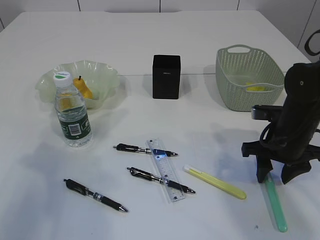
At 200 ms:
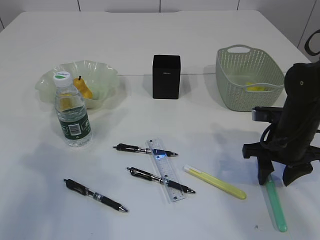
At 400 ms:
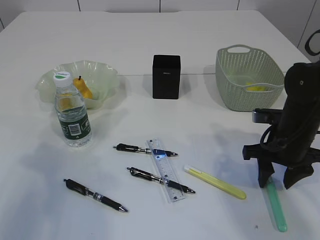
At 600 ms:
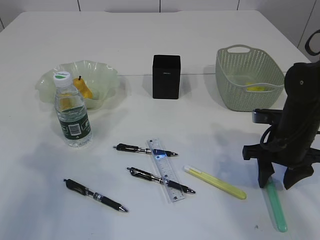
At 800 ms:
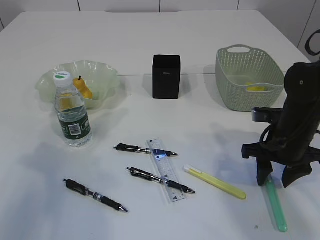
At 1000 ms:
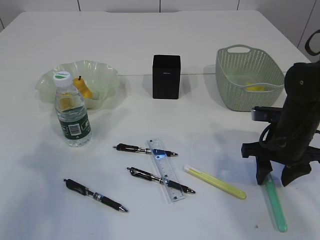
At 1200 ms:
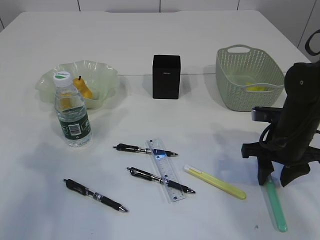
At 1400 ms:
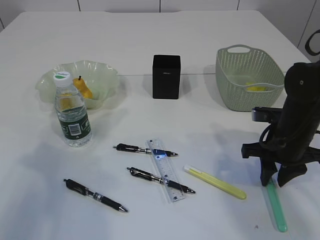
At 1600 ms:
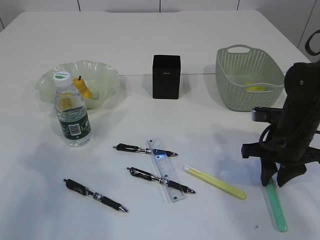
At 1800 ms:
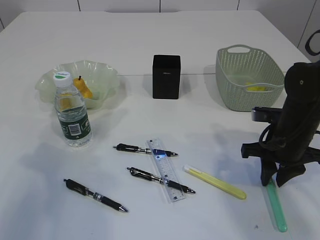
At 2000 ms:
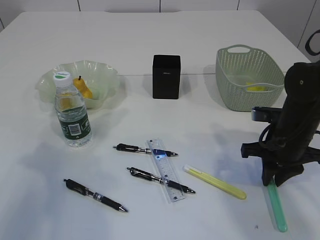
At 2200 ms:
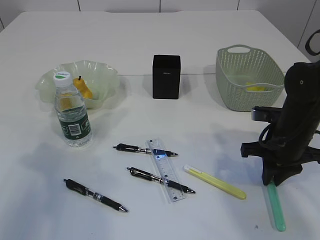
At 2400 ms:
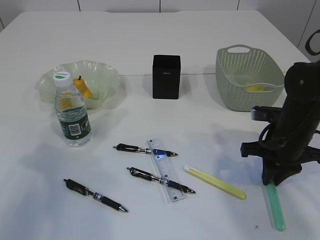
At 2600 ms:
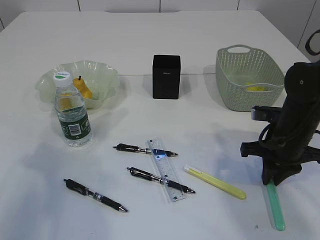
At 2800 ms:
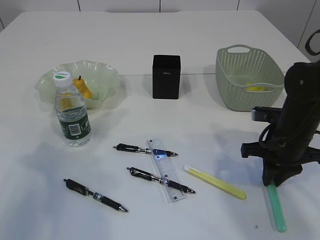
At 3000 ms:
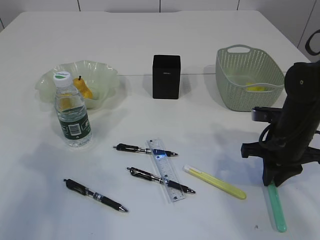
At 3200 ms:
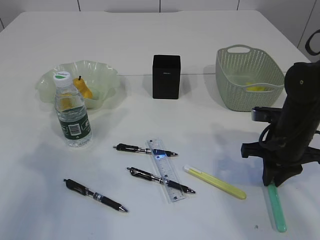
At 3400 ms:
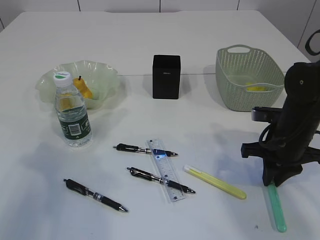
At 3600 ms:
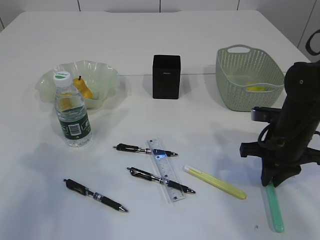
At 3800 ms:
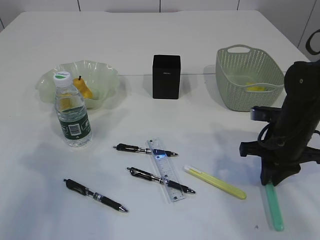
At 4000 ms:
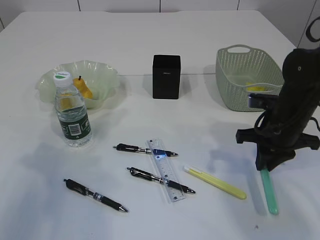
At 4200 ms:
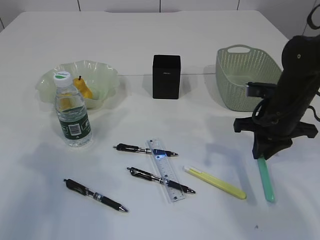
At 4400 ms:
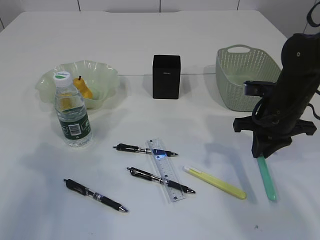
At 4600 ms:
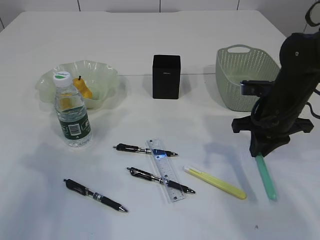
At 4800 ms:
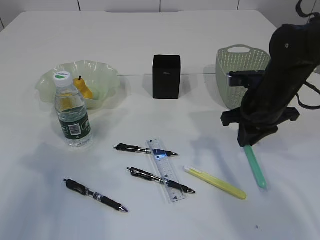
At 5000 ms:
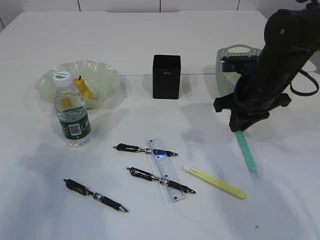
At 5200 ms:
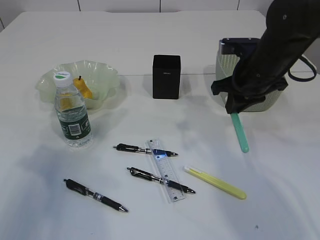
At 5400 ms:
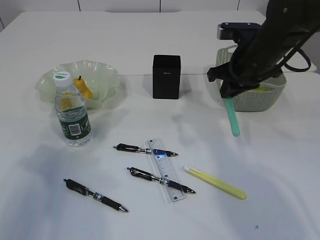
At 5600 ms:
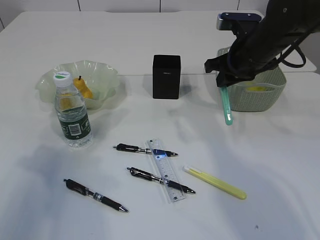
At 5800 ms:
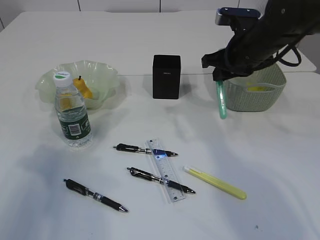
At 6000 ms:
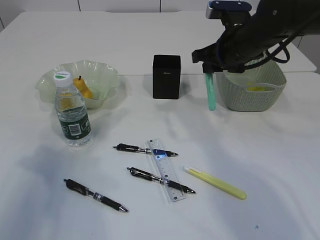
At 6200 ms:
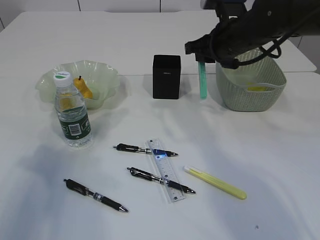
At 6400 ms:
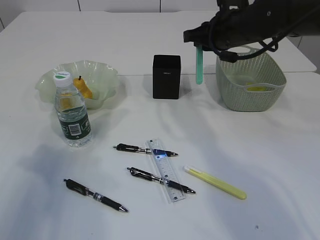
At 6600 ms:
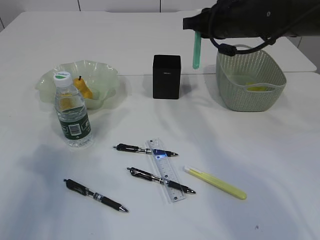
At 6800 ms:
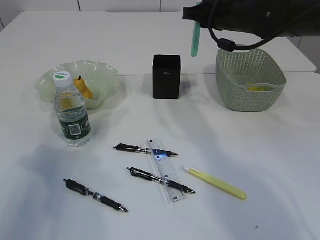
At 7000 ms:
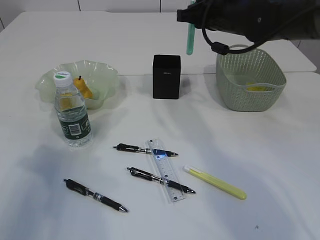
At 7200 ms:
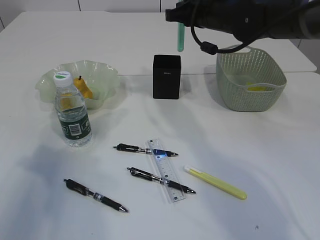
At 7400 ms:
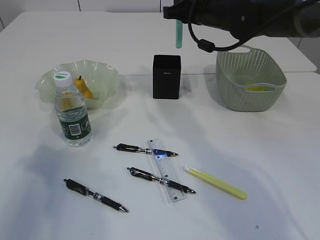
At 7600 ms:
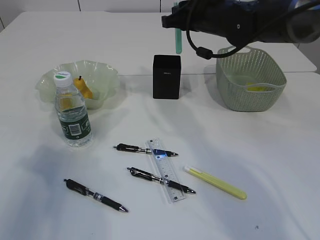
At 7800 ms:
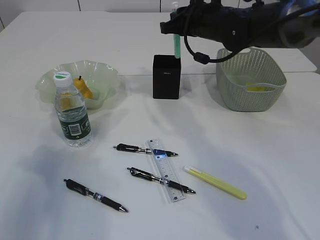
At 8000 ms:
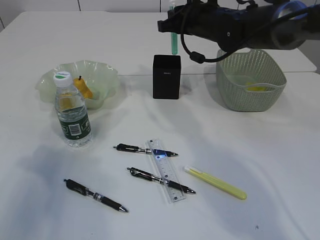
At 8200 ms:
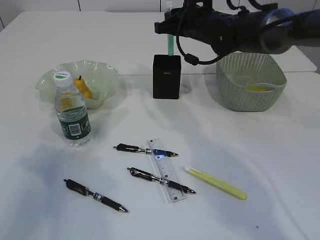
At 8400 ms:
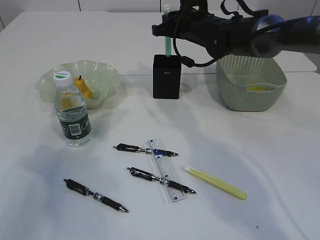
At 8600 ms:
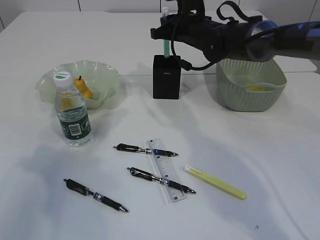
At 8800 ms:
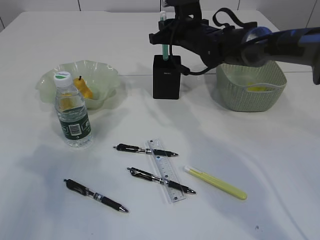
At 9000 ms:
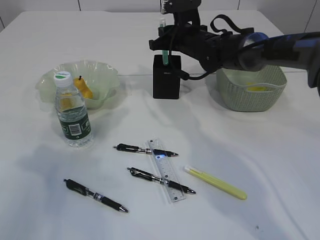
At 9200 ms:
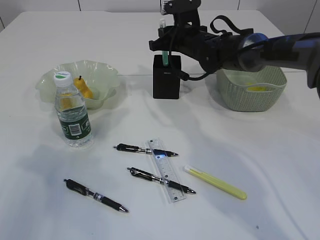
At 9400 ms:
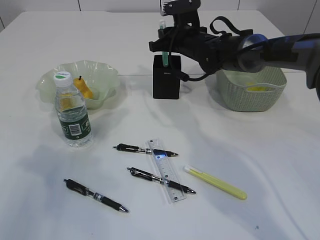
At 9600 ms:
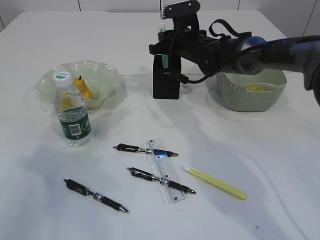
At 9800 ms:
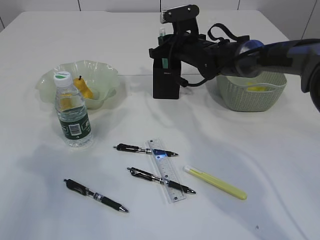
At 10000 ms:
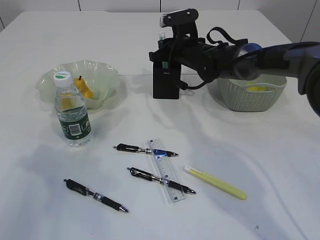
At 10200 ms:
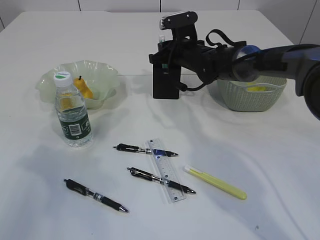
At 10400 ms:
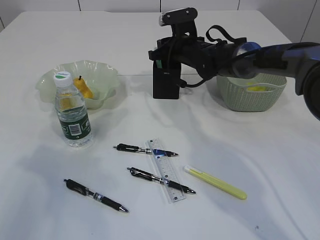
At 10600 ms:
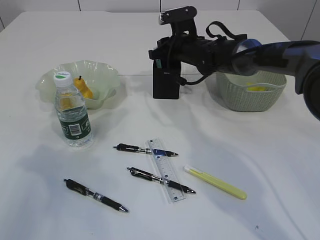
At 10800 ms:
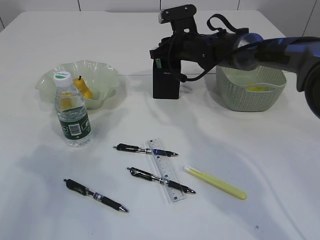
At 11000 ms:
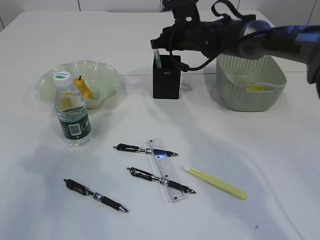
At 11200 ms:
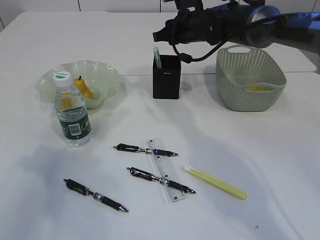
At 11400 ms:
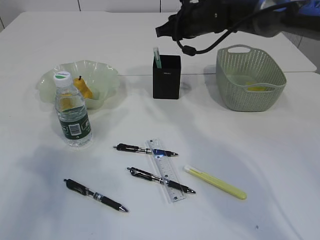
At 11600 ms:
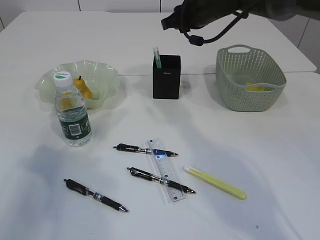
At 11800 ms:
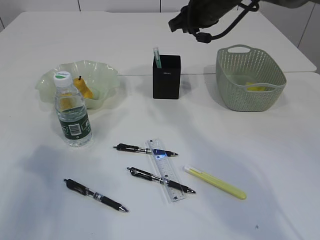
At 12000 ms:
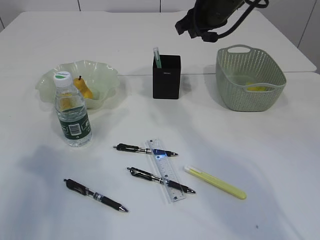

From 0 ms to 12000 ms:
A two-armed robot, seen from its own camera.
Step, from 0 ms to 5000 ms: pick up the blue knife.
From 0 ms to 3000 ms: Both grippers stay about where they are.
From 3000 ms to 4400 ms: The grippers stay close to where they were, moving slightly.
From 4400 ms to 6000 ms: The right gripper is displaced upward, forward and to the left by some 10 cm.
From 6000 ms to 7600 ms: The right gripper moves roughly 5 cm.
From 7600 ms to 9000 ms: The right gripper goes some 10 cm downward and forward.
From 9000 ms to 10400 ms: The grippers make only small movements.
From 10400 ms to 12000 ms: The right gripper heads upward and backward, covering roughly 15 cm.

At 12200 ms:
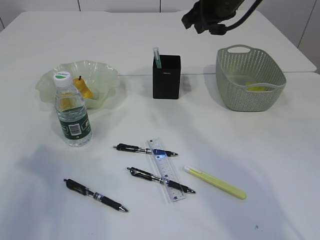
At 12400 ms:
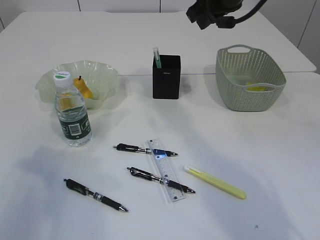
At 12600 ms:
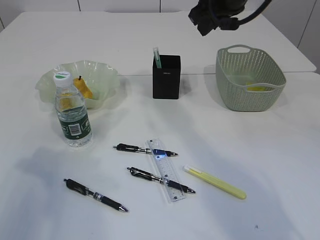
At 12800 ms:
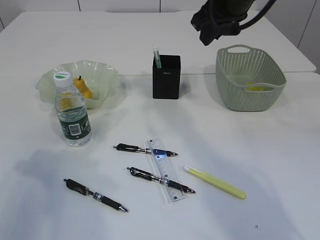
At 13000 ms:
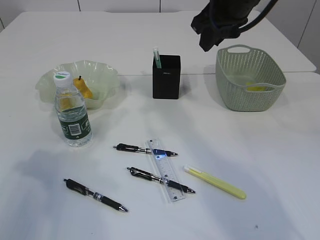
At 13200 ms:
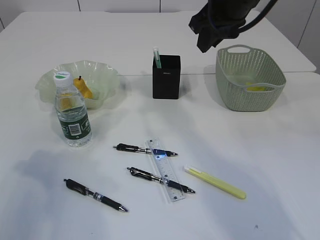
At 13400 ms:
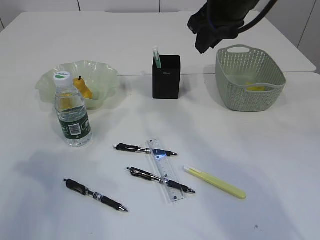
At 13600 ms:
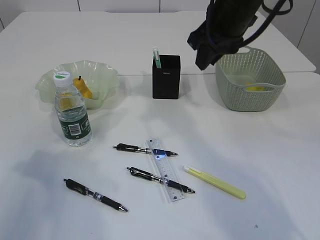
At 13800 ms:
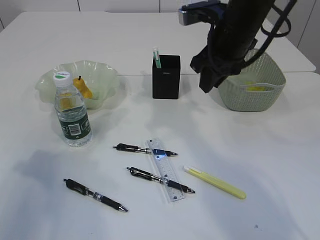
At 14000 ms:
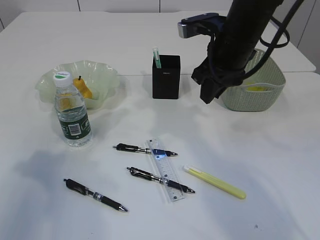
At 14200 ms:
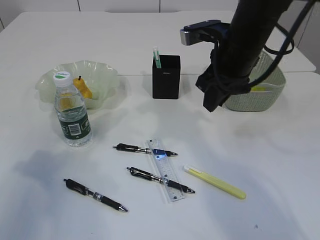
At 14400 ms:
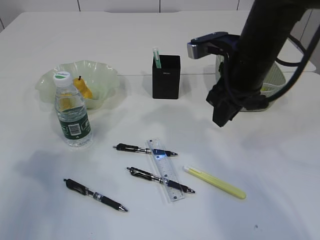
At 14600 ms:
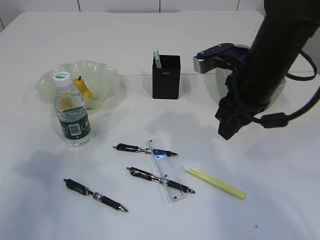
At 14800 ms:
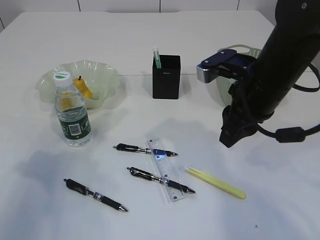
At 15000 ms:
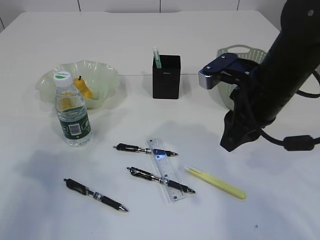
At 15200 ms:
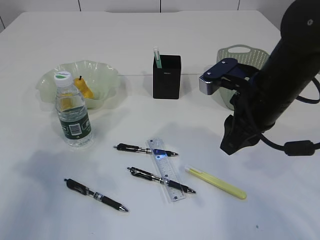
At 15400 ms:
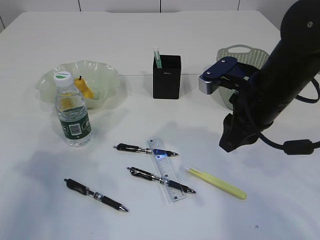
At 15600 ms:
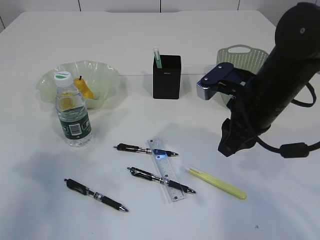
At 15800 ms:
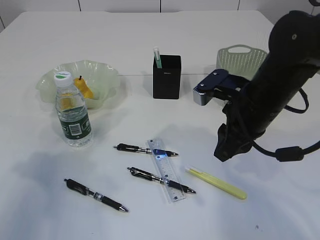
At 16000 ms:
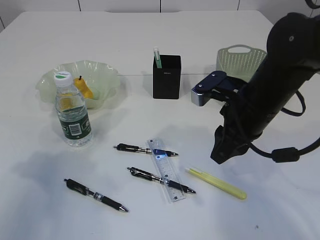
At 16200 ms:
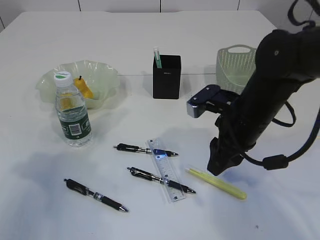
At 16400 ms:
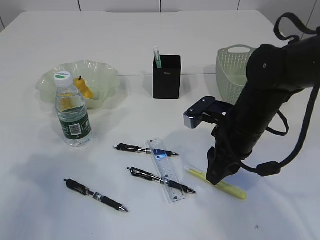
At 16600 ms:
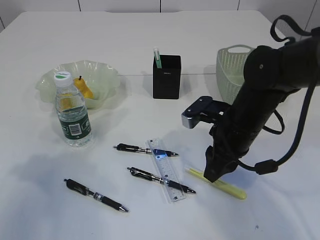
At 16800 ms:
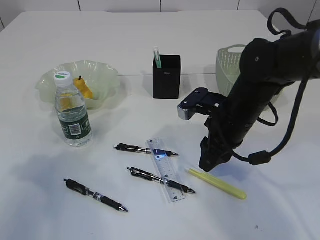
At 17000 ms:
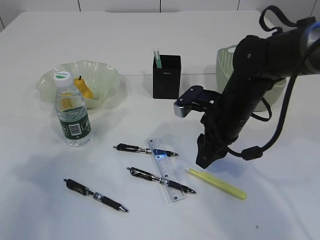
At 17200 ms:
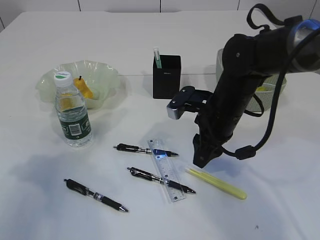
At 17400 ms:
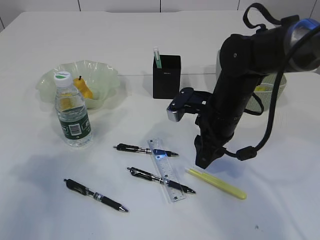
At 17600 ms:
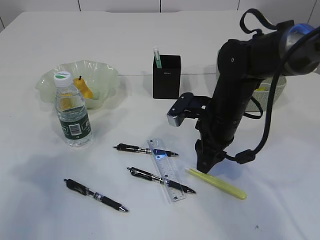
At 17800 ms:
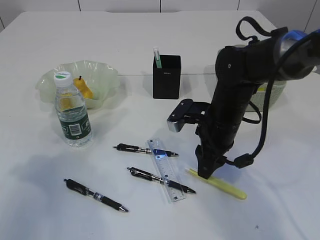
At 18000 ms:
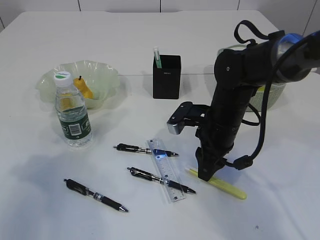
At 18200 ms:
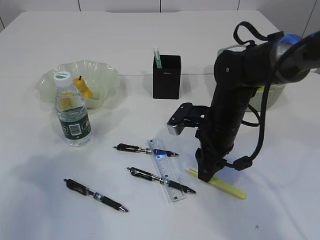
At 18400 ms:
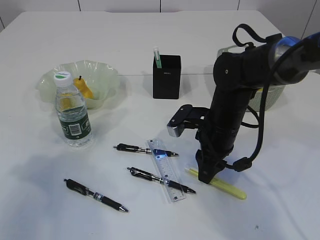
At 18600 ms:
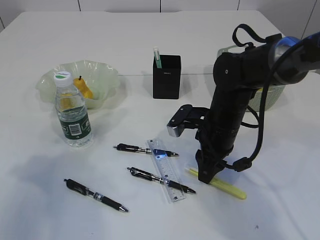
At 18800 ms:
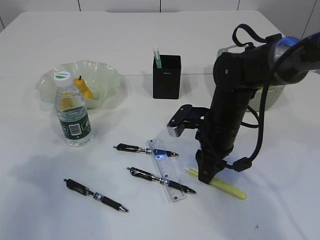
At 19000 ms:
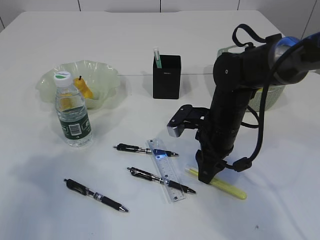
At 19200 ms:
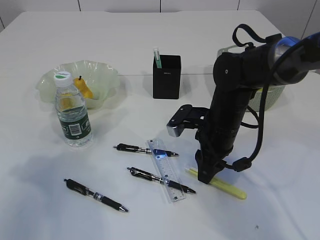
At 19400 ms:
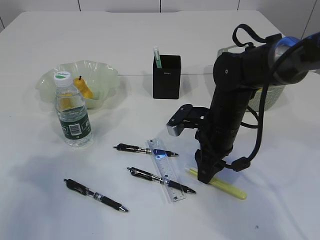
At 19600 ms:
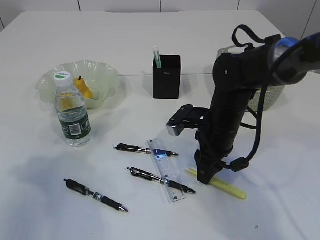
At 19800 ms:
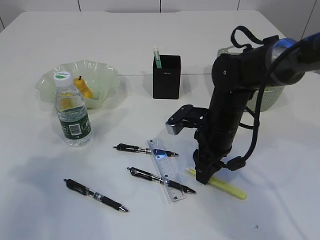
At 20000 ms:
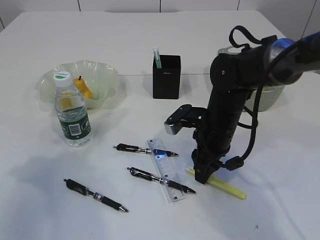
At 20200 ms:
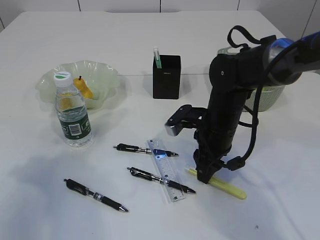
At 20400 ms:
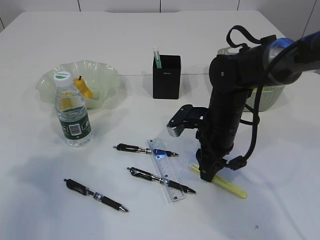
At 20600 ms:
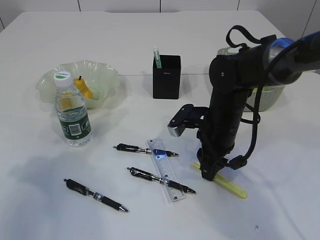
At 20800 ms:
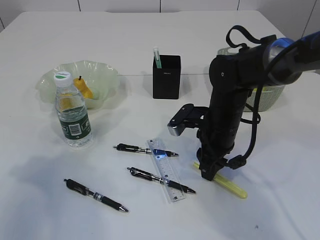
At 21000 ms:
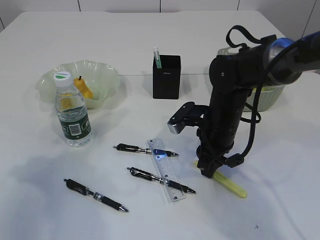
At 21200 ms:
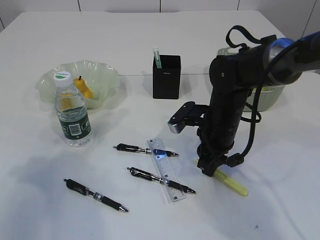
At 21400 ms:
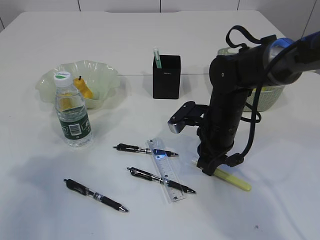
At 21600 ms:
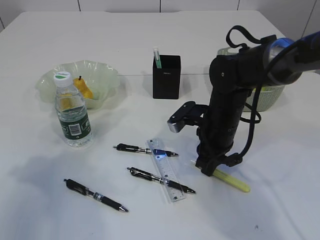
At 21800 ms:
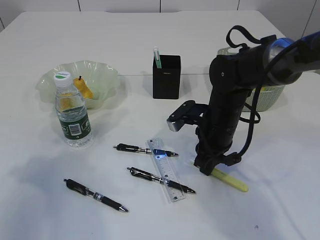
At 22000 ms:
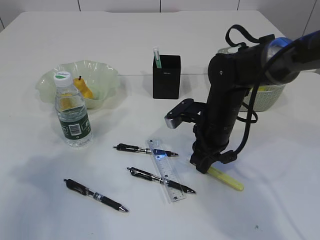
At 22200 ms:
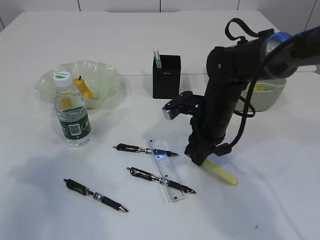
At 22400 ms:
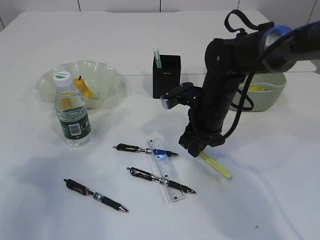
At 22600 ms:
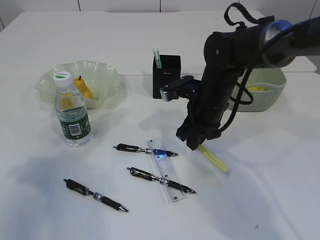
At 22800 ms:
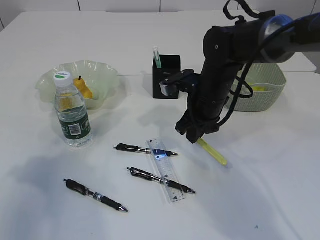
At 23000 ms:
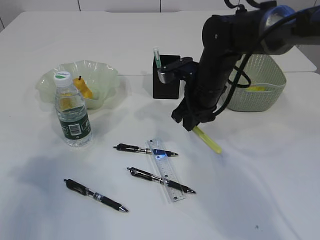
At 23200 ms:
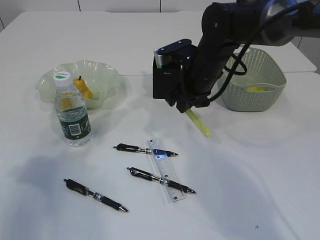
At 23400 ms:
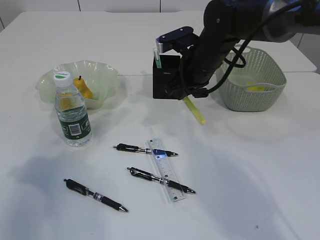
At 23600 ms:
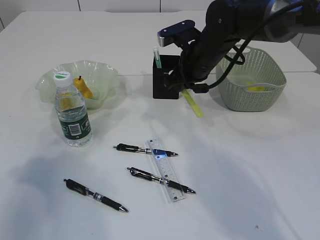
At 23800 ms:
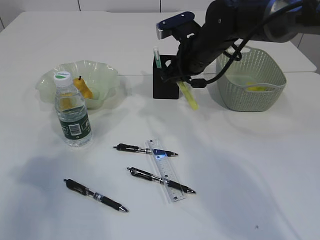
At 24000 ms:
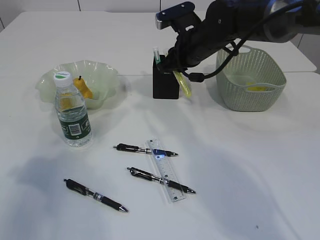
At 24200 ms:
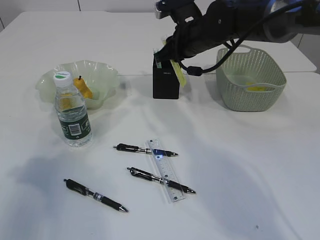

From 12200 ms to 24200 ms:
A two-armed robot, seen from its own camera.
Step, from 14200 ms to 22400 ms: pick up the yellow knife.
From 12200 ms to 13800 ms: The right gripper moves backward, some 5 cm.
From 13800 ms to 15200 ms: The right gripper shifts about 10 cm backward and downward.
From 15200 ms to 16600 ms: The right gripper heads downward, covering roughly 10 cm.
From 16600 ms to 18200 ms: There are only small adjustments of the grippers.
From 18200 ms to 19800 ms: Both grippers stay about where they are.
From 19800 ms to 22600 ms: The grippers make only small movements.
From 22600 ms to 24200 ms: The right gripper travels upward and forward by some 10 cm.
